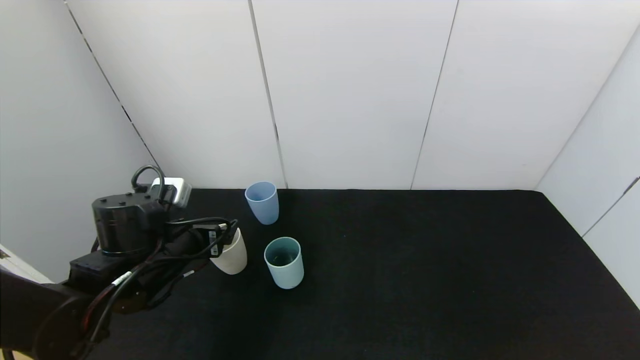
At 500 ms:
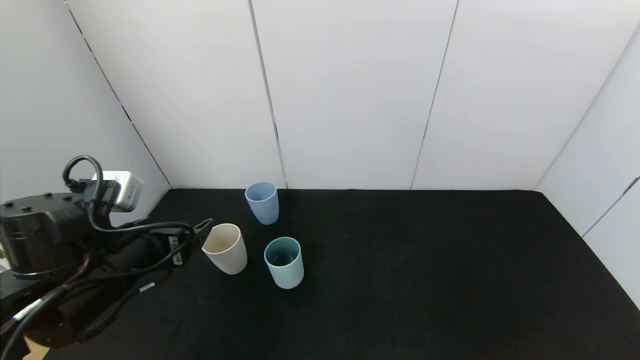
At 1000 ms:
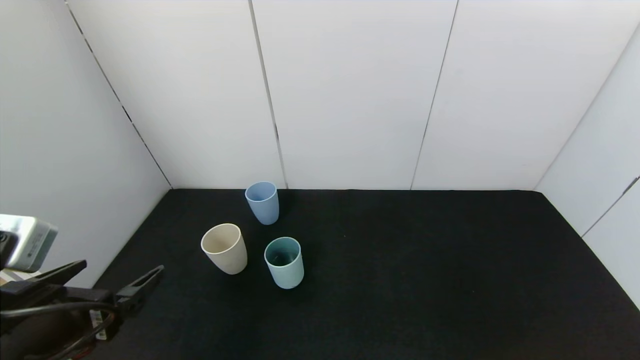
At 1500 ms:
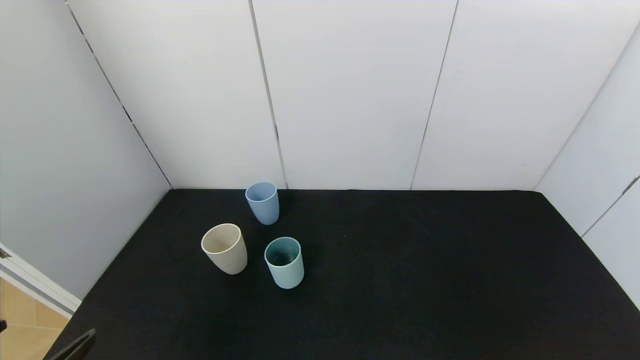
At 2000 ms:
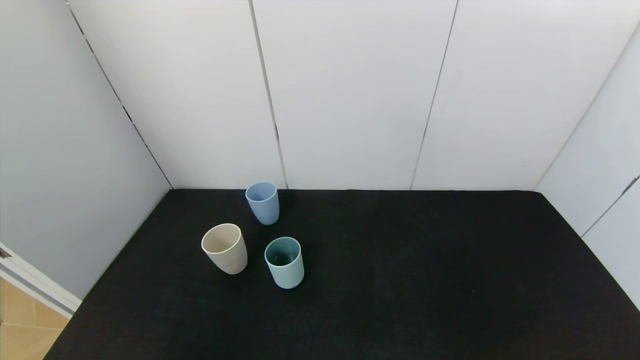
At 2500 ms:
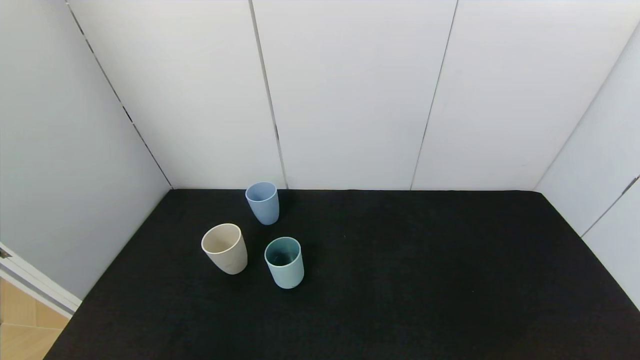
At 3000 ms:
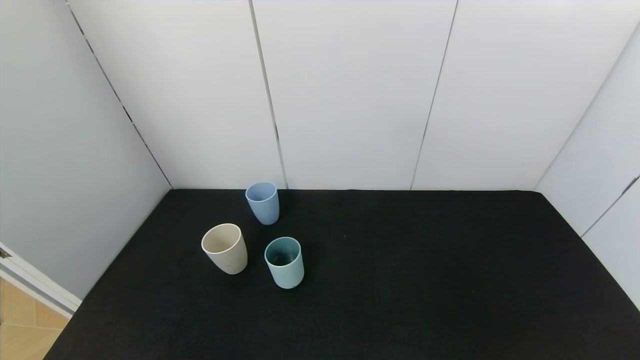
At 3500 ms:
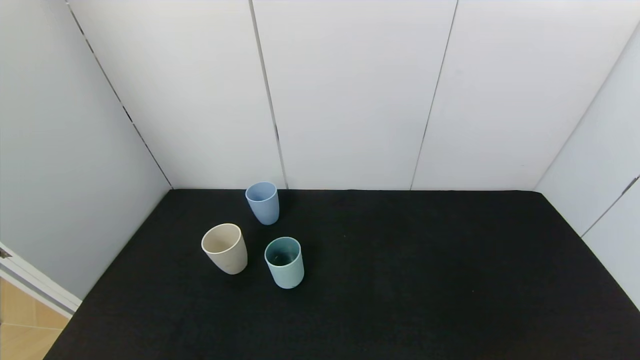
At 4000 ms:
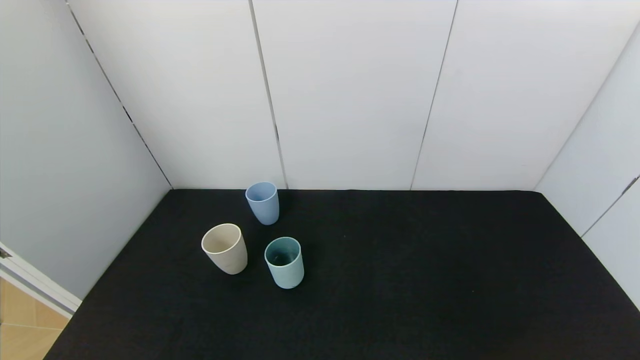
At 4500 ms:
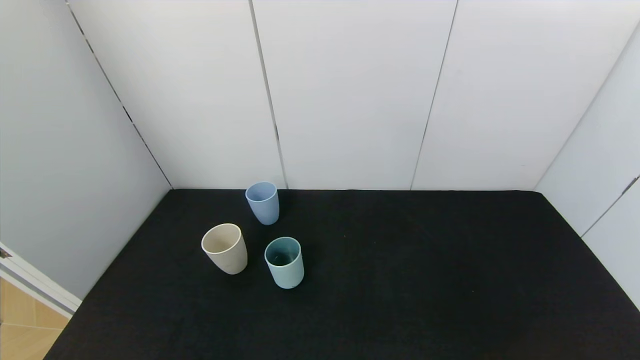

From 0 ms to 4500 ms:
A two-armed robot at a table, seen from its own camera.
Task of the whole recording: use the gripper to pour the water into the other two cups on black table.
From 0 ms to 2000 ms: The left gripper travels backward by some 30 cm.
